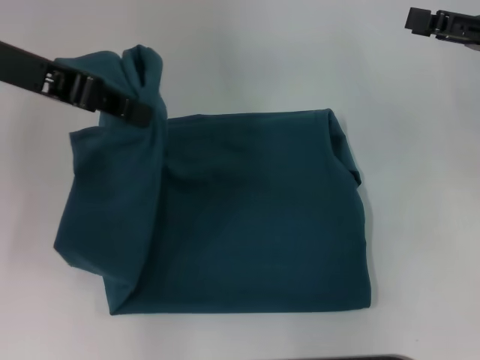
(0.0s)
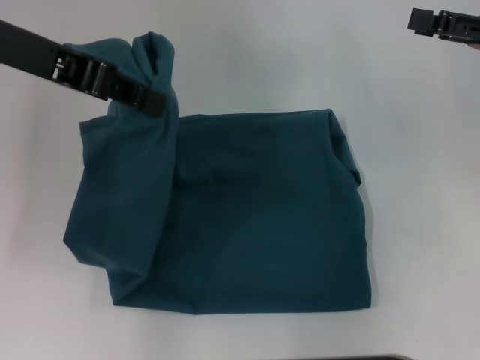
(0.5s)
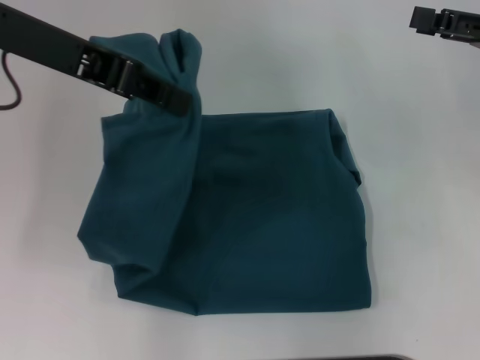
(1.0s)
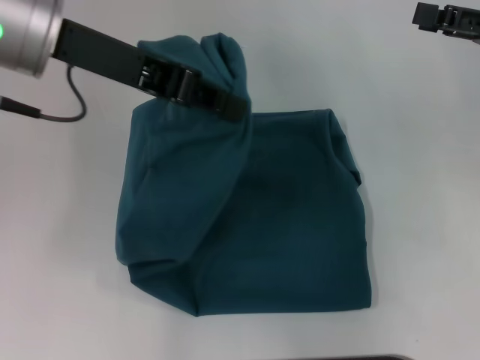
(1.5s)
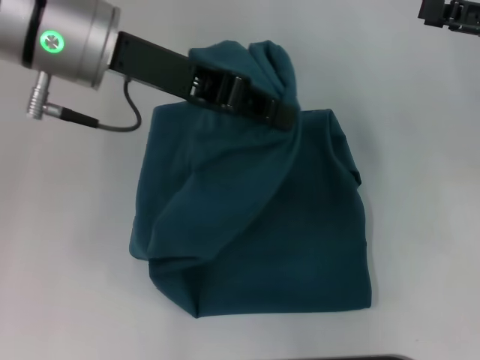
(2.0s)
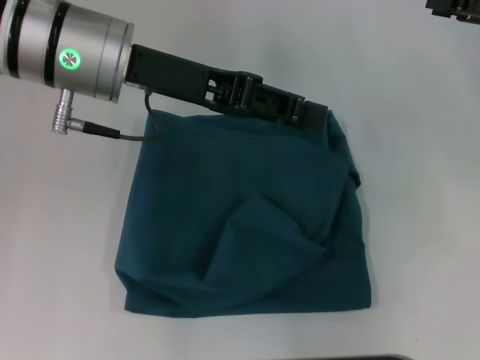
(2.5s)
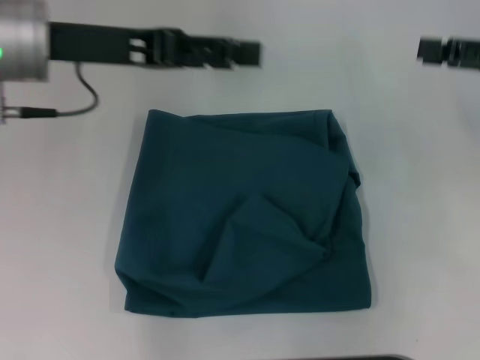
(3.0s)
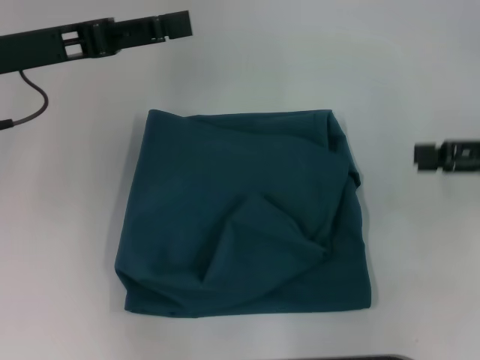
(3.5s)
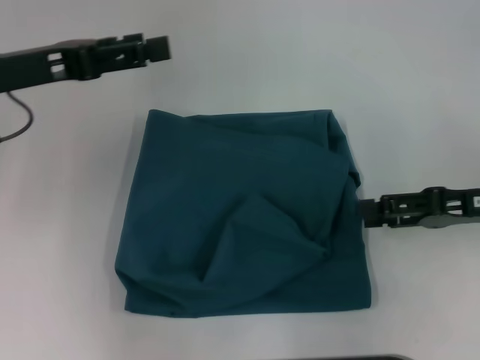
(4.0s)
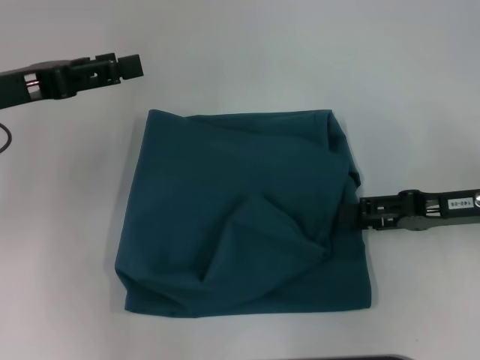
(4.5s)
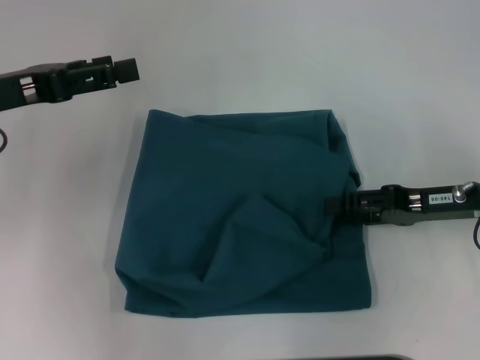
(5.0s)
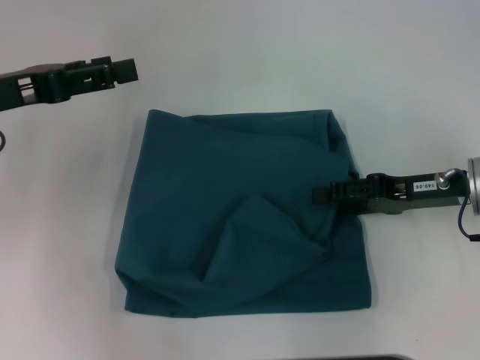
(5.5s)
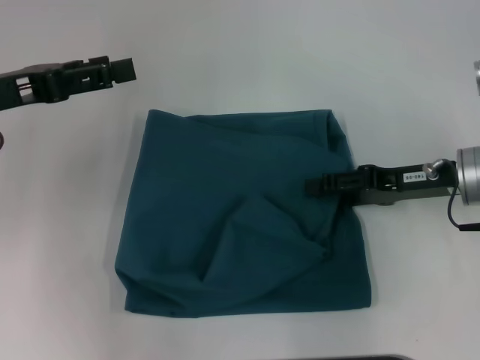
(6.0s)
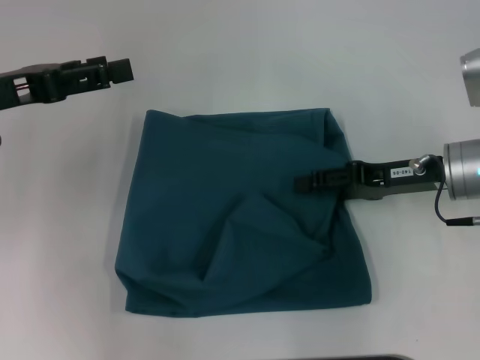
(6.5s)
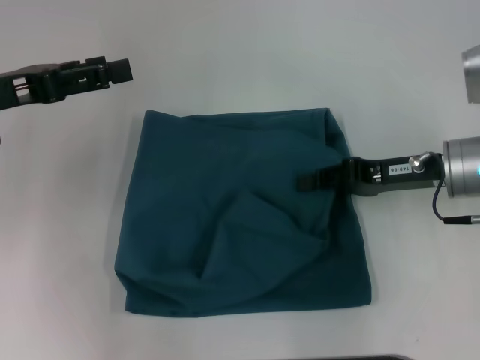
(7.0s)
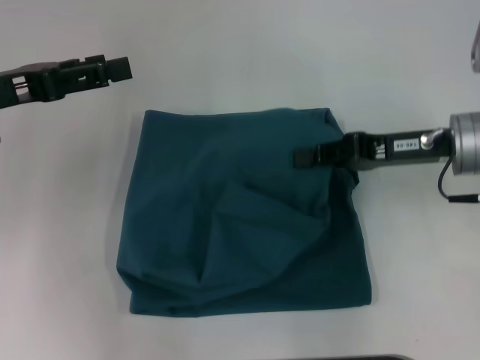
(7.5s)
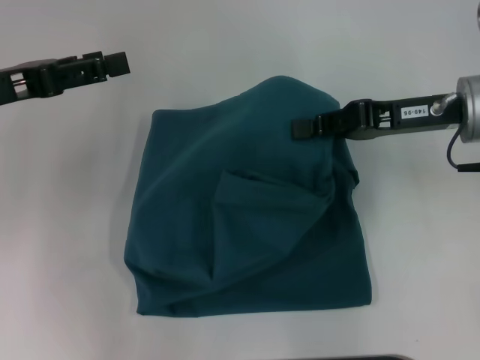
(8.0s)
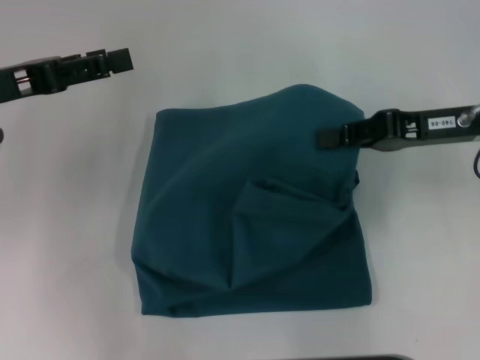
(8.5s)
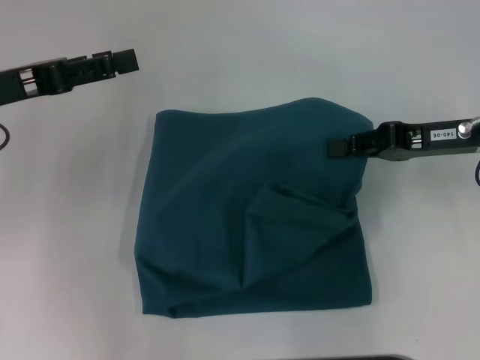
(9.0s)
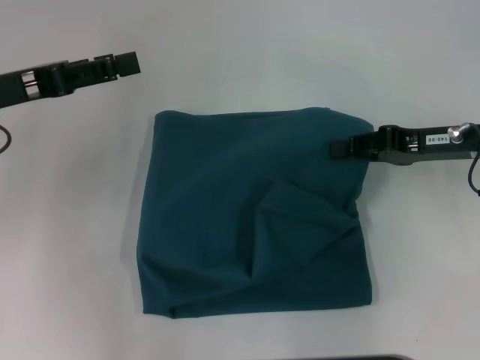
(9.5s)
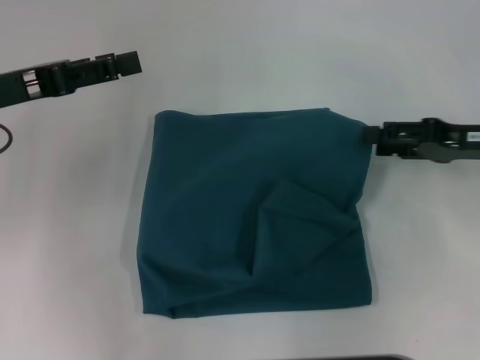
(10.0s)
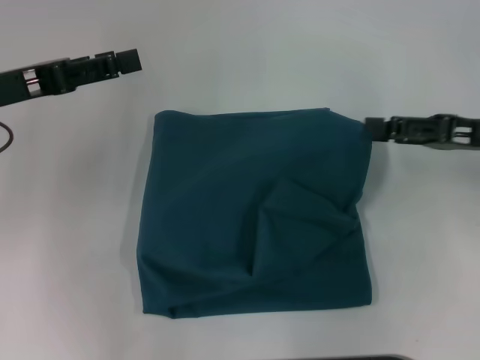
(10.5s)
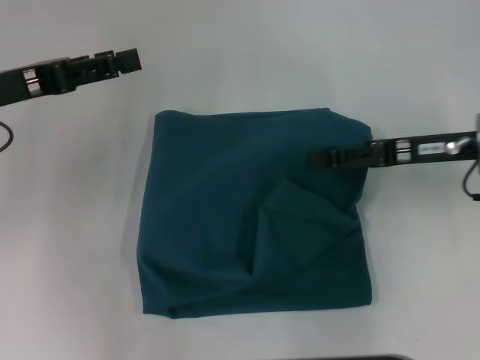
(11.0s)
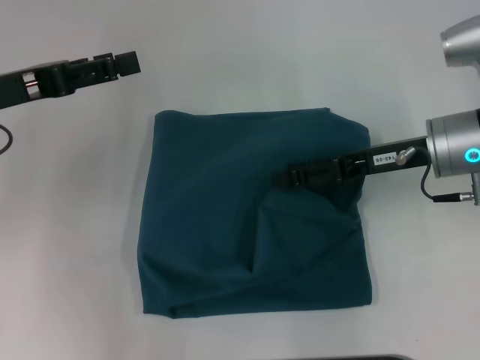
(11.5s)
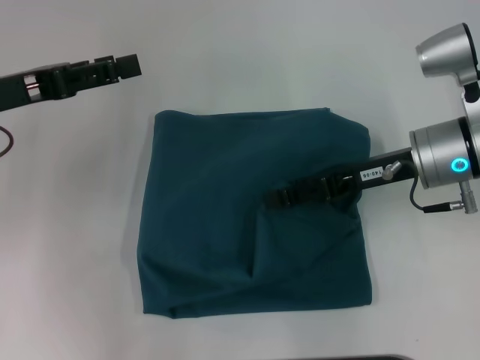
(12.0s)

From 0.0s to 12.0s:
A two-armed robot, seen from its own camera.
Step, from 0.0s to 2.5s: Fold the clothes to the left.
From 0.0s to 2.0s: The left gripper is displaced to the right by roughly 10 cm.
From 2.0s to 4.0s: The right gripper travels downward and backward by some 10 cm. The left gripper is displaced to the left and downward by about 15 cm, and opens up.
From 4.0s to 6.0s: The right gripper changes place by about 5 cm.
From 6.0s to 8.0s: The right gripper heads upward, covering about 5 cm, and closes its fingers.
From 8.0s to 10.0s: The right gripper moves to the right, approximately 10 cm, and opens up.
From 10.0s to 12.0s: The right gripper is displaced to the left by some 10 cm.

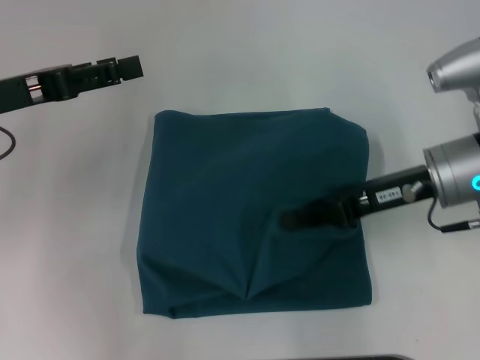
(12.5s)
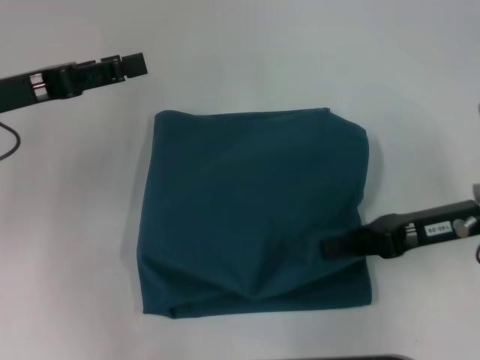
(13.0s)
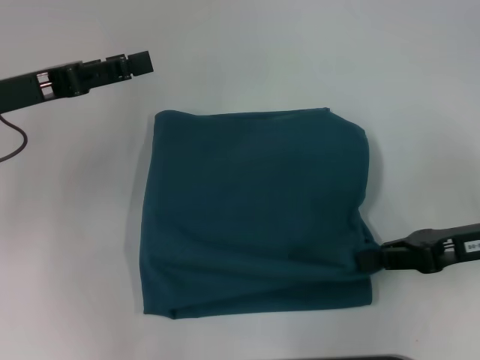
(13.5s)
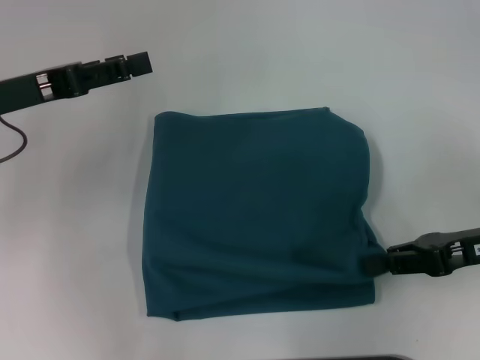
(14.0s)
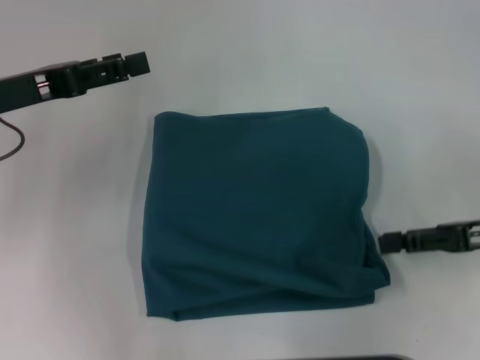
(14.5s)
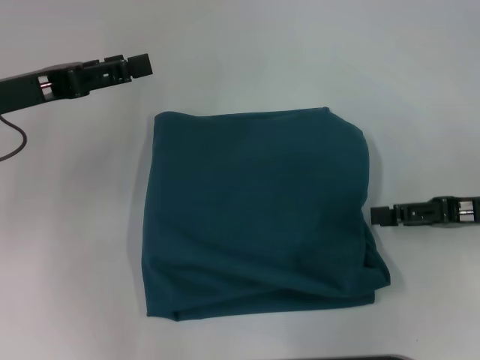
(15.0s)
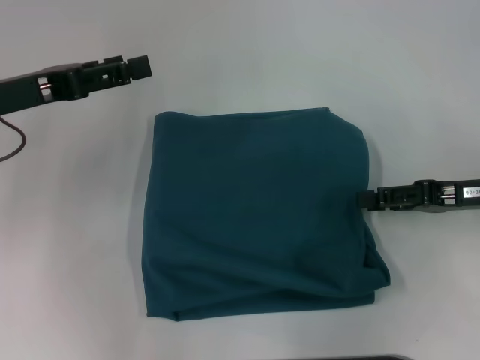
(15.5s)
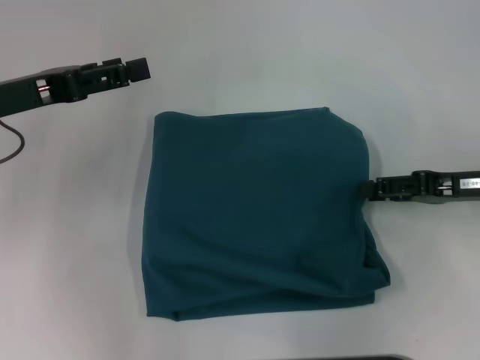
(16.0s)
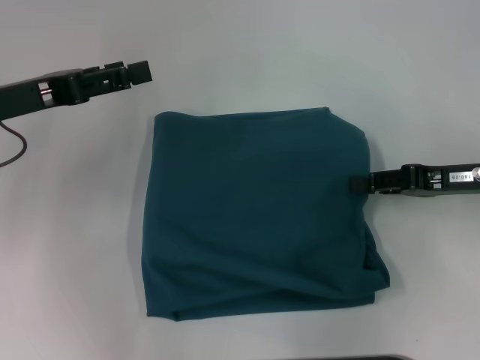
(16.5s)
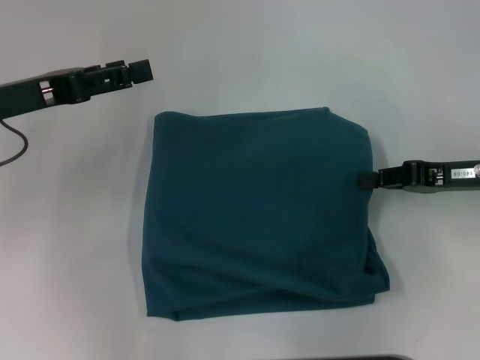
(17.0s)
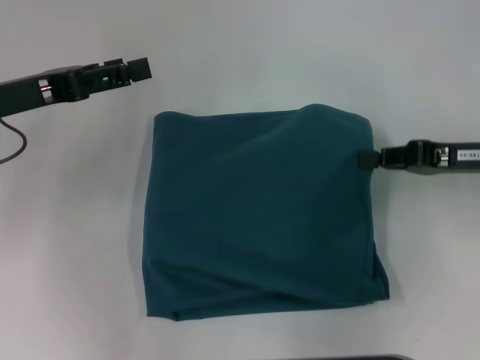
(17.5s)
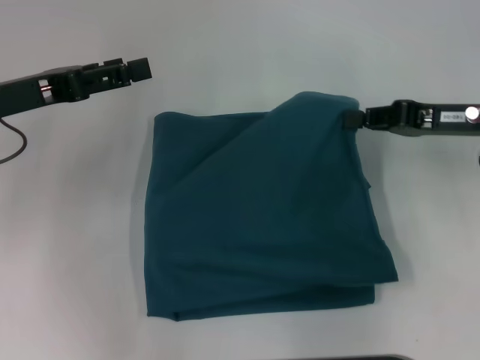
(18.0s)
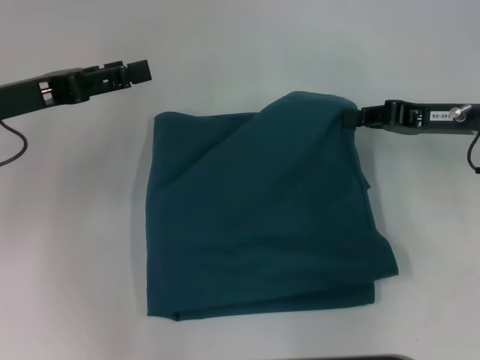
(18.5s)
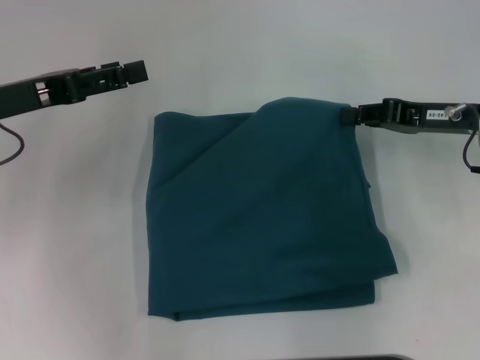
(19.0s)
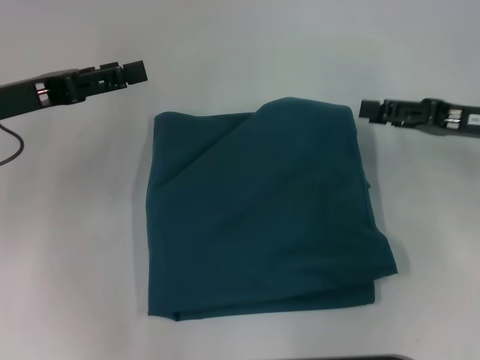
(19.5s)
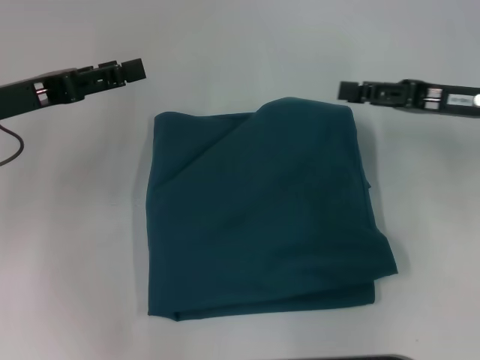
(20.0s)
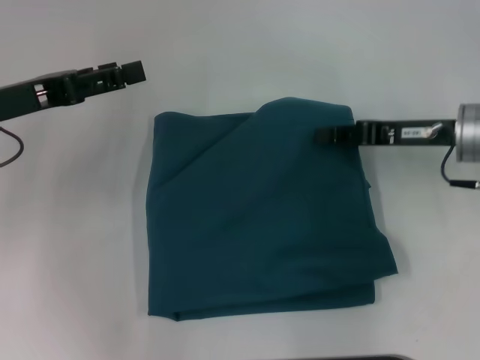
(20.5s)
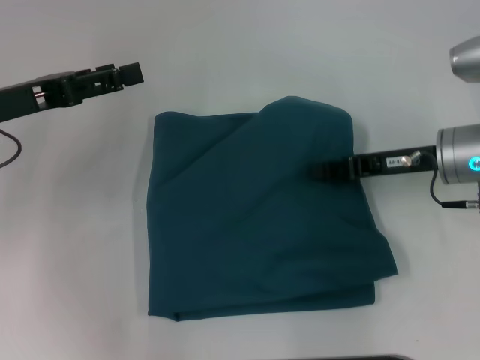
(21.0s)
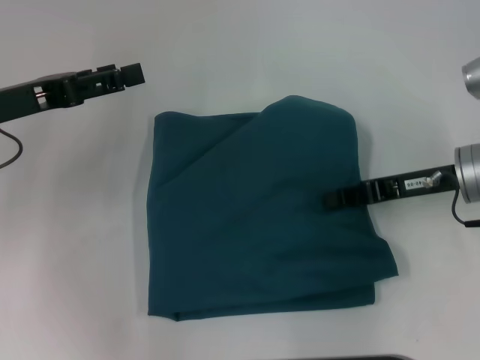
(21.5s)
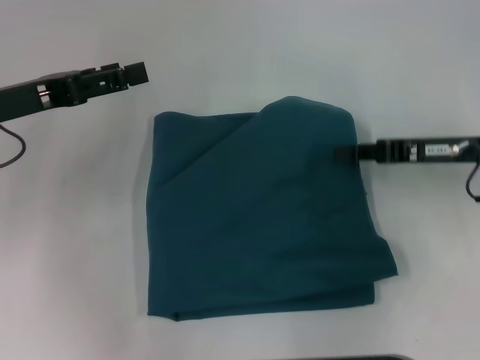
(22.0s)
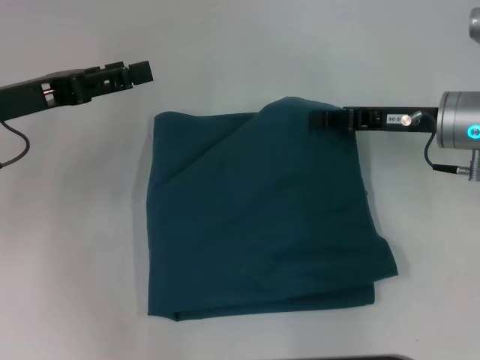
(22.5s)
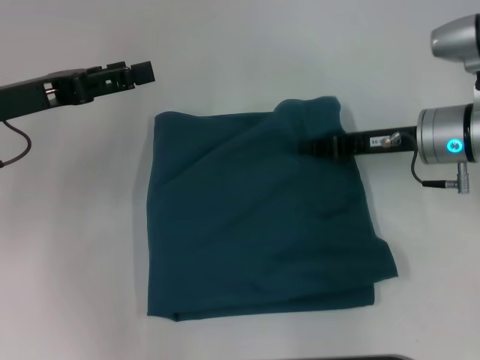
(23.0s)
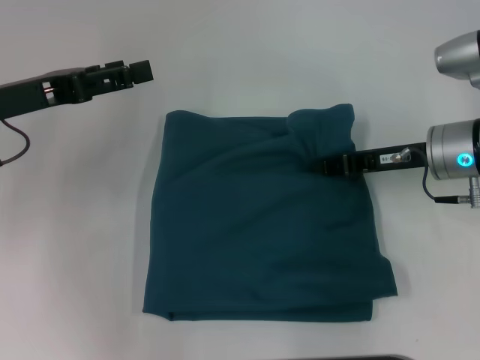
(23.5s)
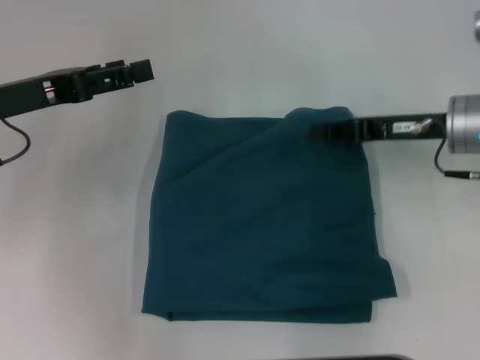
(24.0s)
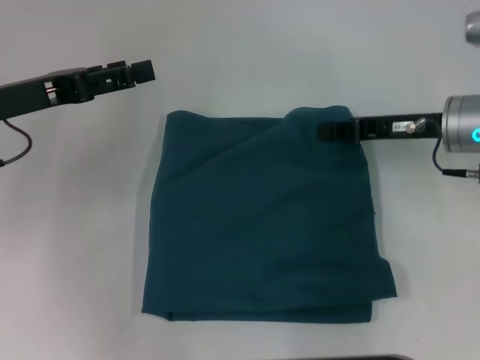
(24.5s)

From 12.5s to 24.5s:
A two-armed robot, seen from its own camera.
From 12.5s to 14.5s: The right gripper goes approximately 10 cm to the right and backward.
From 14.5s to 16.5s: The right gripper changes place by roughly 5 cm.
From 16.5s to 18.5s: The right gripper closes.
From 18.5s to 20.5s: The right gripper opens, then closes once more.
From 20.5s to 24.5s: The grippers move only a little.

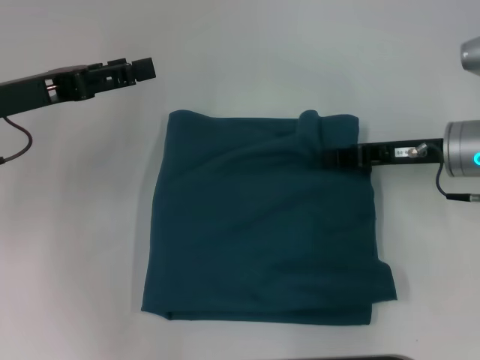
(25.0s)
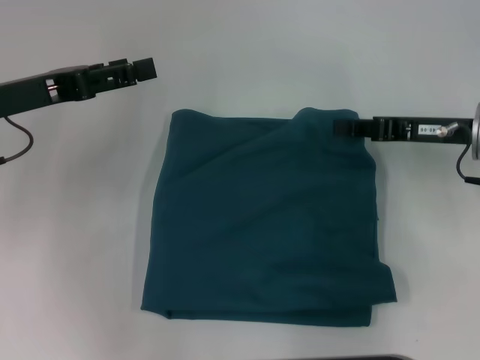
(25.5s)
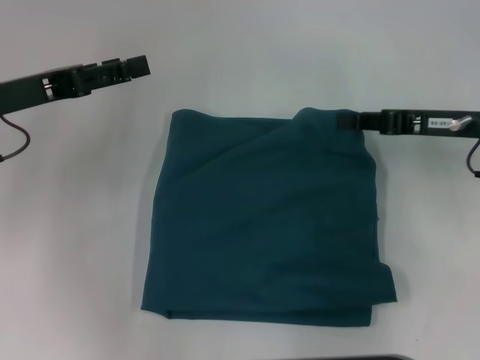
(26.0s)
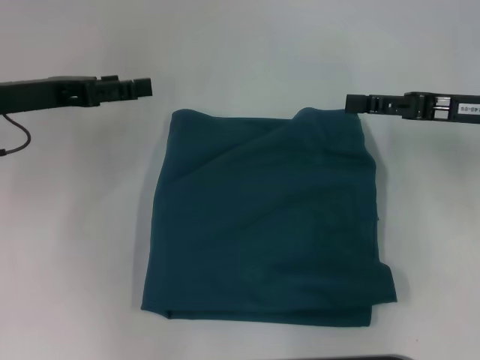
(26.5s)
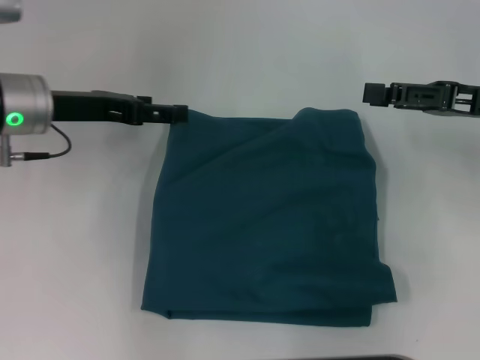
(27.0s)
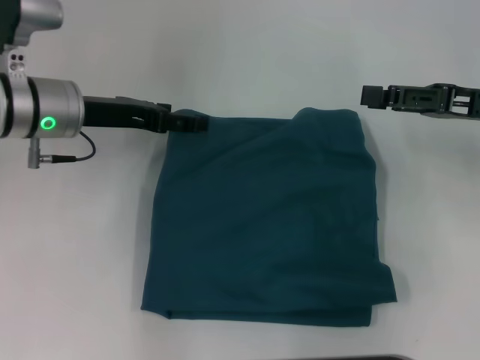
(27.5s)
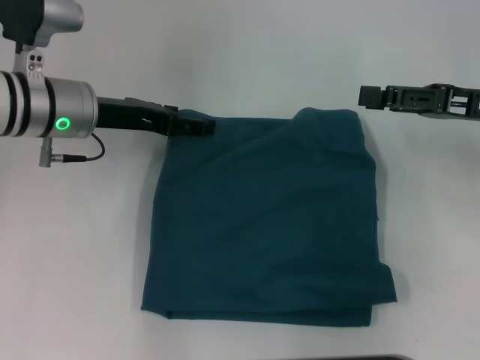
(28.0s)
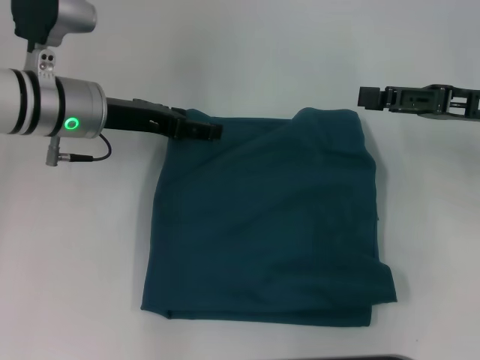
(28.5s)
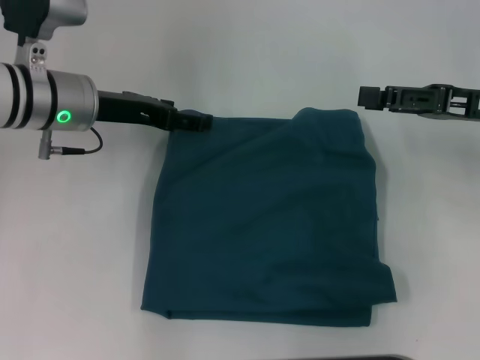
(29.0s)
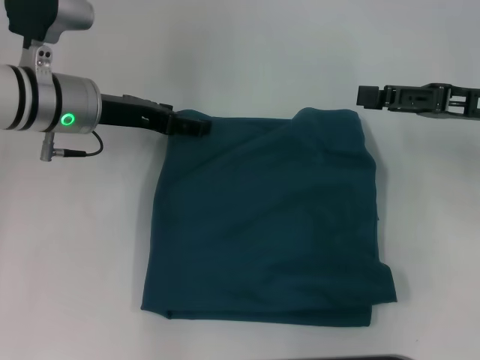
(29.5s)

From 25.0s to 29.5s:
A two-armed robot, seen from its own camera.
From 25.0s to 27.0s: The left gripper ends up about 5 cm from where it was. Meanwhile the right gripper moves upward and to the right, some 10 cm, and opens.
From 27.0s to 29.5s: The grippers stay close to where they were, moving slightly.
